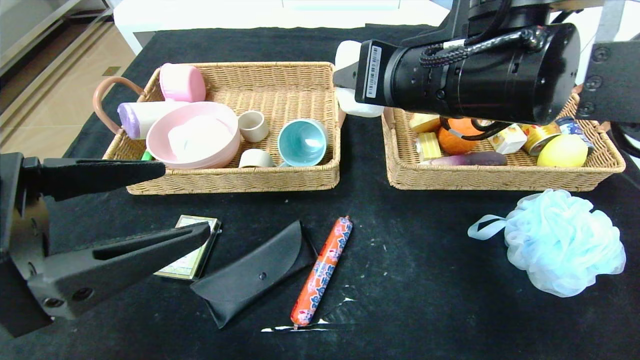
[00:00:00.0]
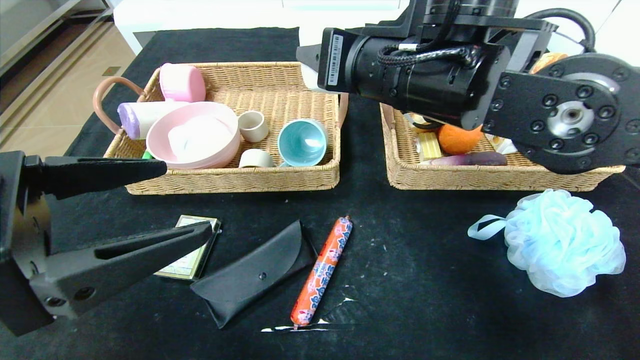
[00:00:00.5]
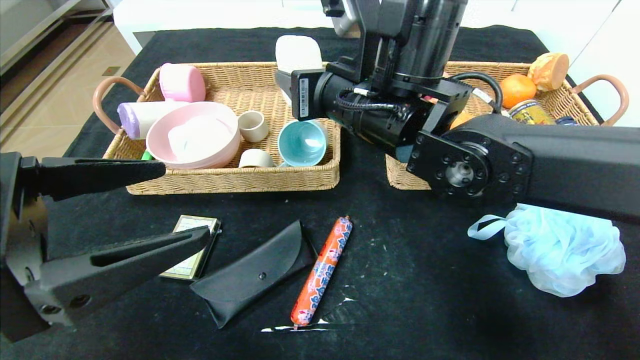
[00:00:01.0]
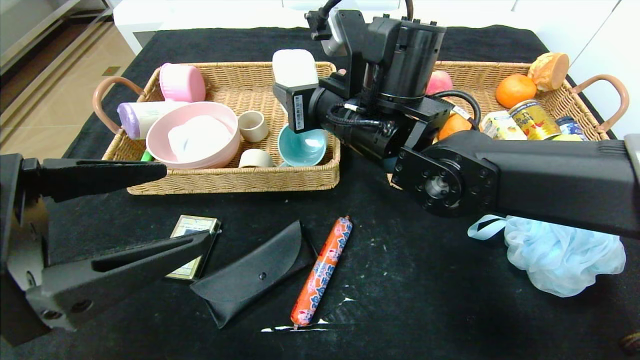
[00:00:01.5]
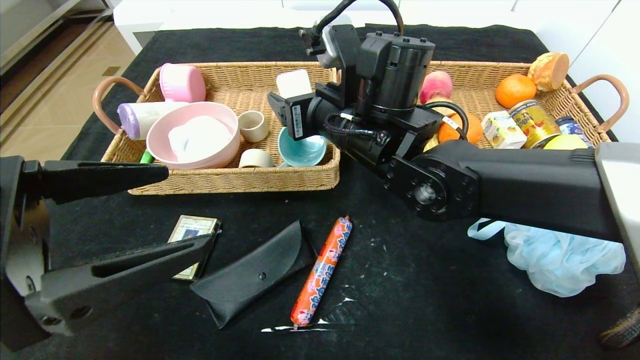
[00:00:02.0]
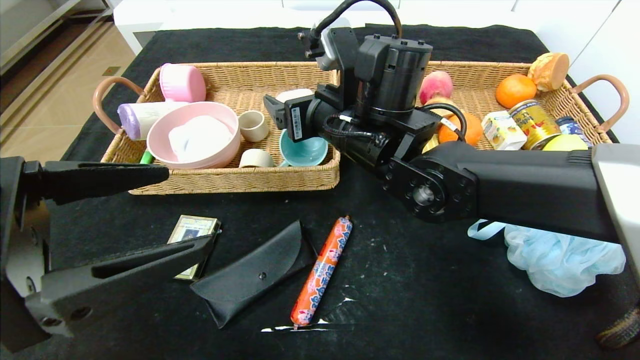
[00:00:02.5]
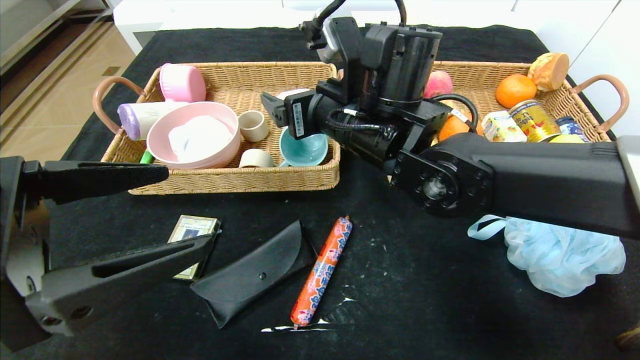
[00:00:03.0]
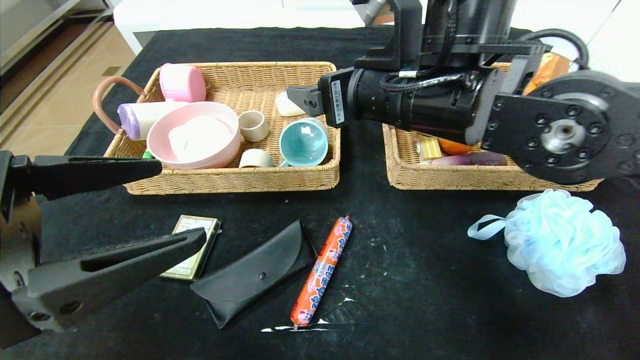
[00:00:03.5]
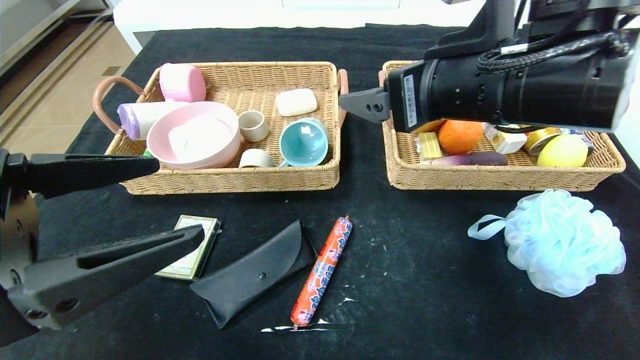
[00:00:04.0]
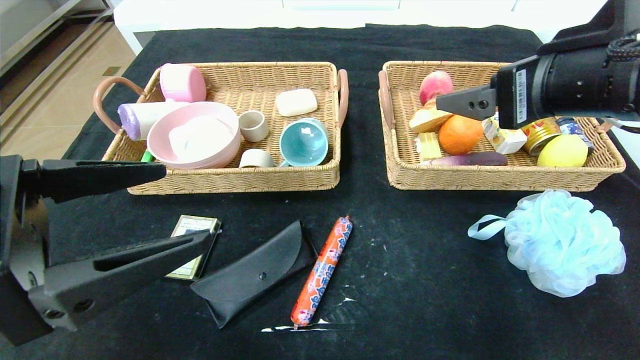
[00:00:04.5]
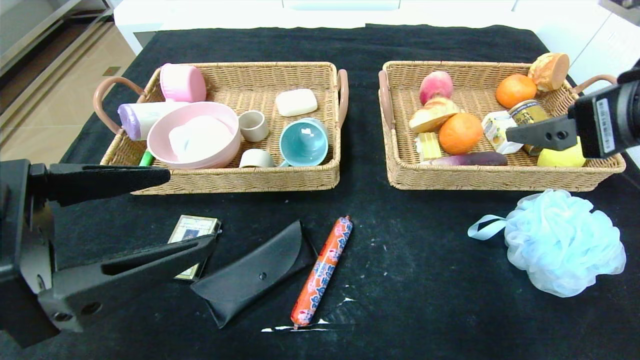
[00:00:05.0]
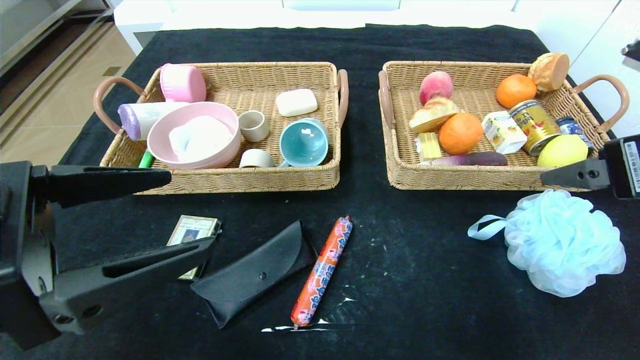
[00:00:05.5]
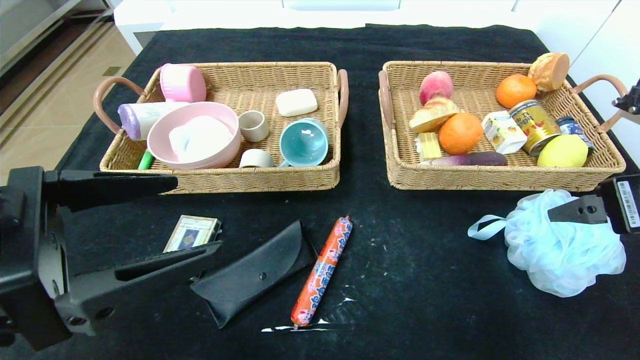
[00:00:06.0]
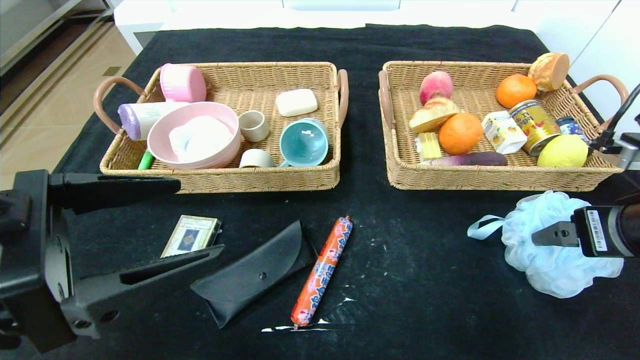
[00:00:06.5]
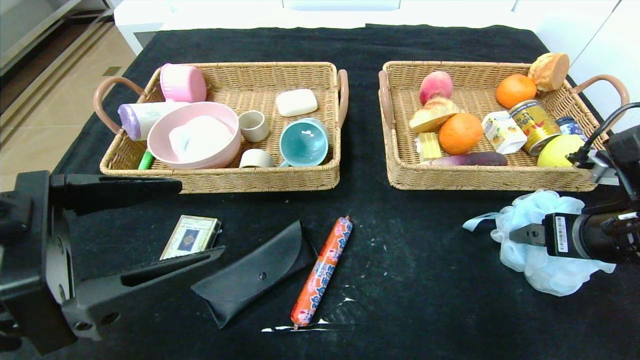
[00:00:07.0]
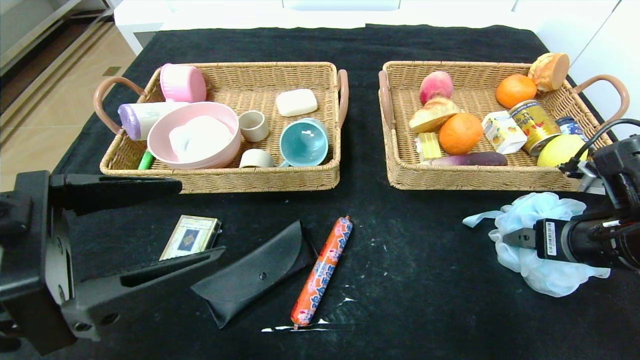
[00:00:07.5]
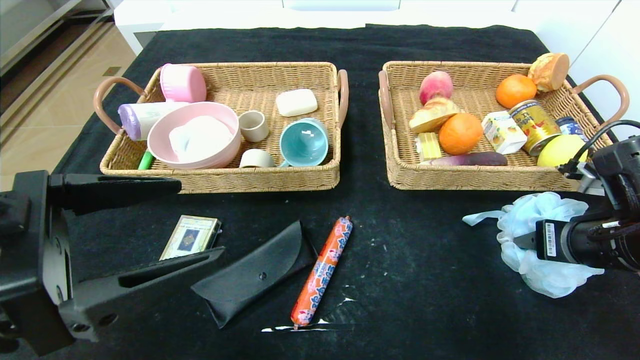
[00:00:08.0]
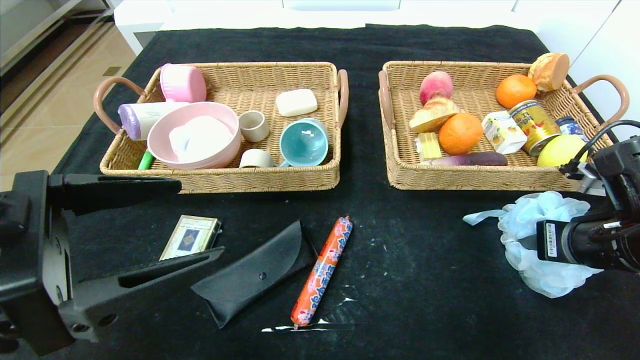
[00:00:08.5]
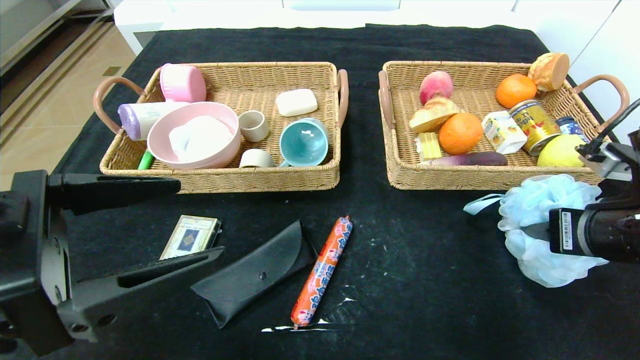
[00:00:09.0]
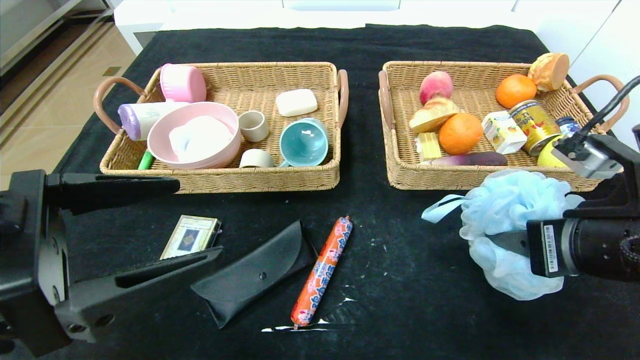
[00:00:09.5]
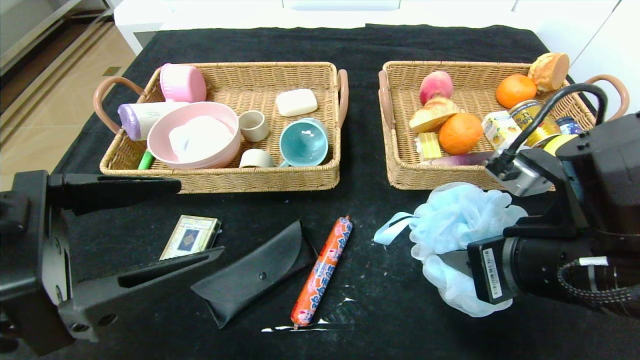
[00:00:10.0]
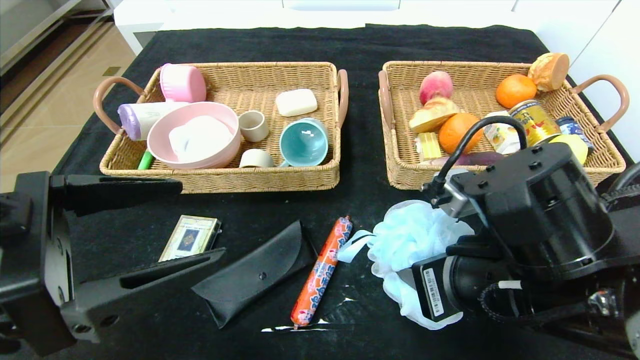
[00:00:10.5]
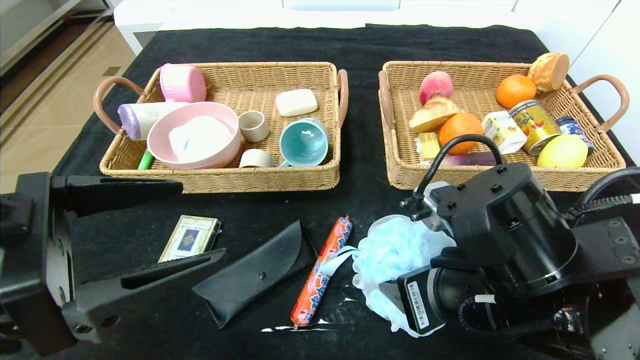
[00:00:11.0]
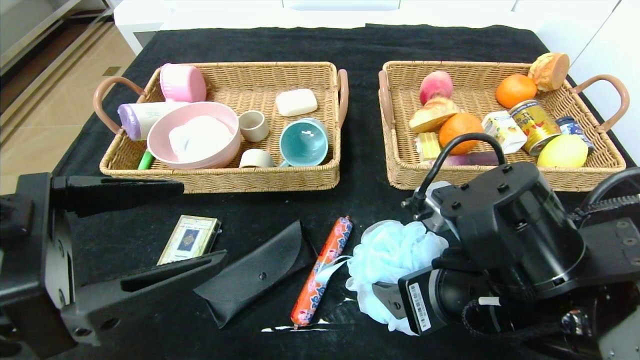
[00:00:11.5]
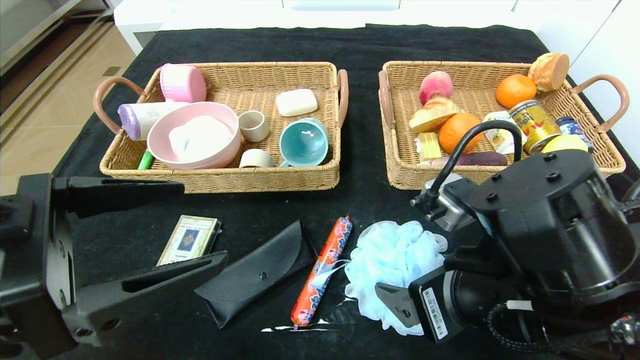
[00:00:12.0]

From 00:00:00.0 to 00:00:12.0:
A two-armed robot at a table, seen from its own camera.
From 00:00:00.0 to 00:00:02.0: The right gripper travels to the left, forward and downward by approximately 10 cm, and opens.
From 00:00:02.0 to 00:00:04.0: The right gripper is displaced to the right, backward and upward by approximately 15 cm.
From 00:00:04.0 to 00:00:06.0: The right gripper heads to the right, covering approximately 15 cm.
From 00:00:06.0 to 00:00:08.0: The right gripper shifts about 10 cm downward, and closes.
From 00:00:08.0 to 00:00:10.0: The right gripper heads to the left and backward, covering some 15 cm.
From 00:00:10.0 to 00:00:12.0: The right gripper opens.

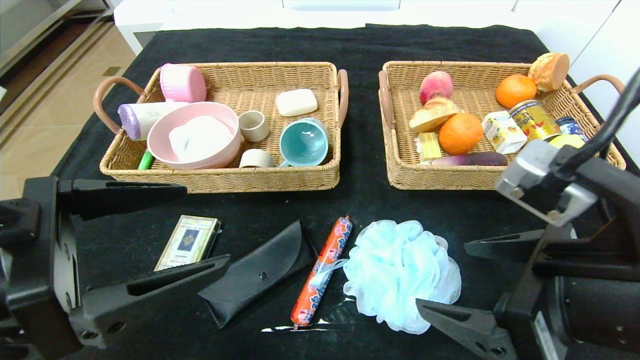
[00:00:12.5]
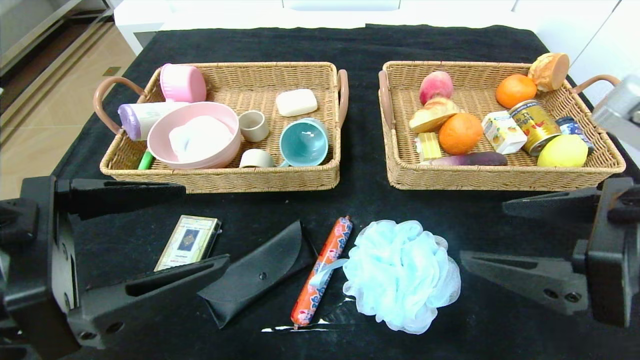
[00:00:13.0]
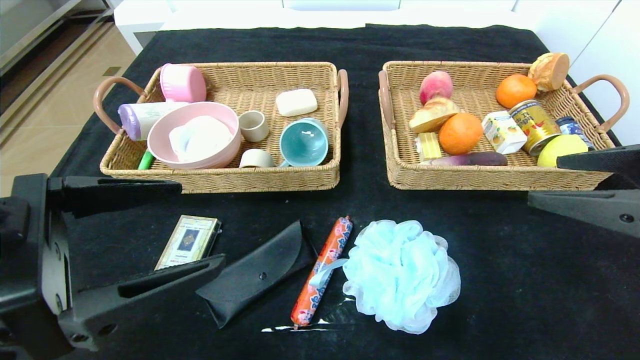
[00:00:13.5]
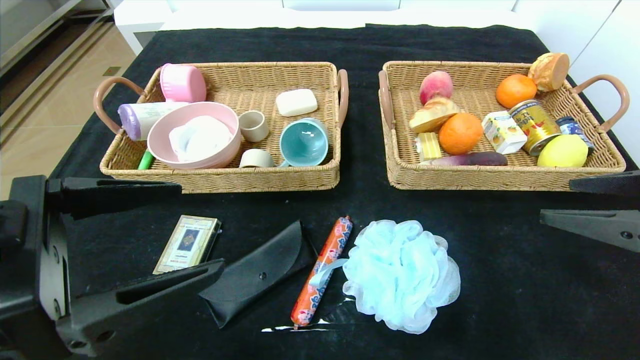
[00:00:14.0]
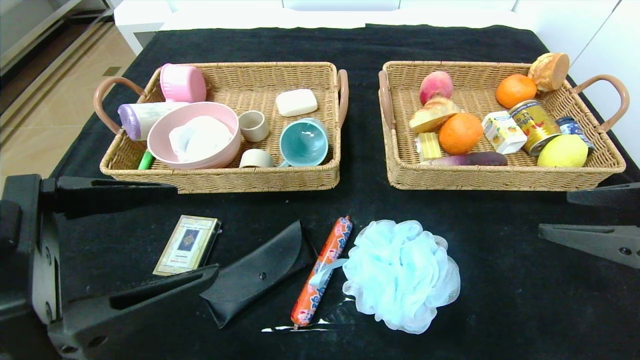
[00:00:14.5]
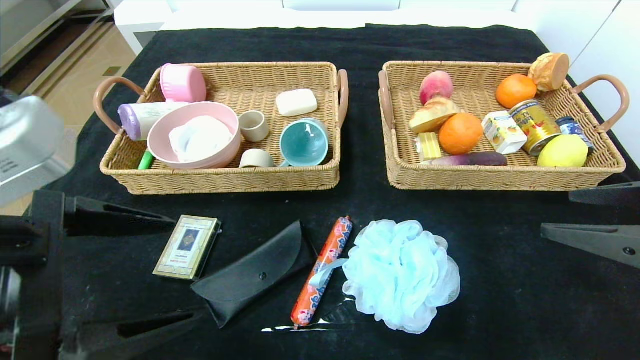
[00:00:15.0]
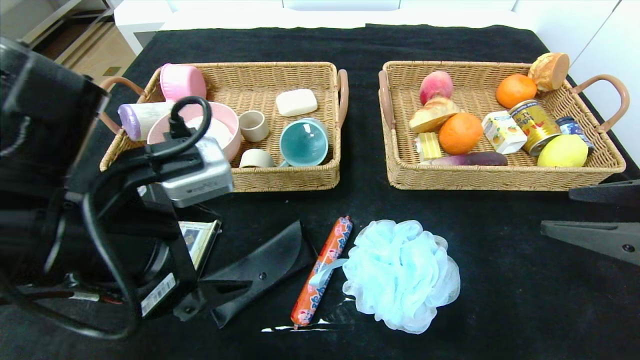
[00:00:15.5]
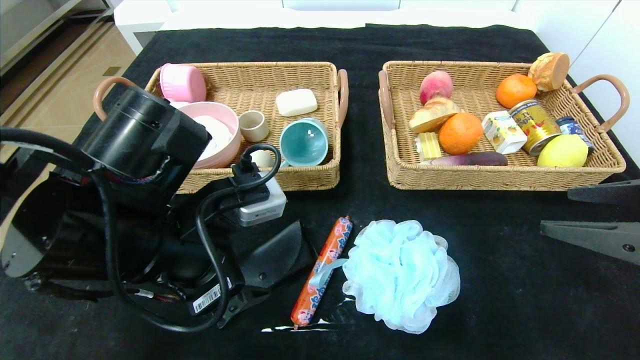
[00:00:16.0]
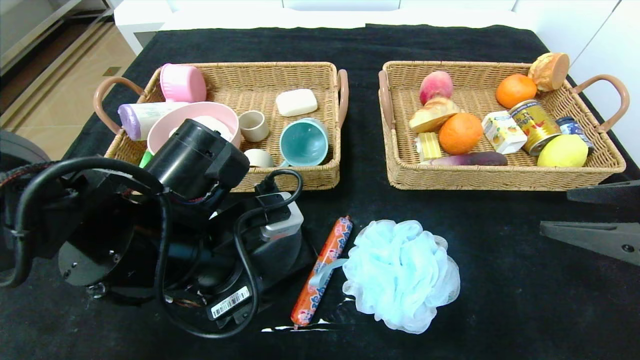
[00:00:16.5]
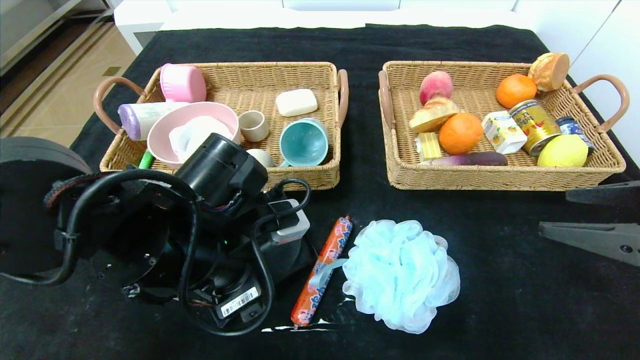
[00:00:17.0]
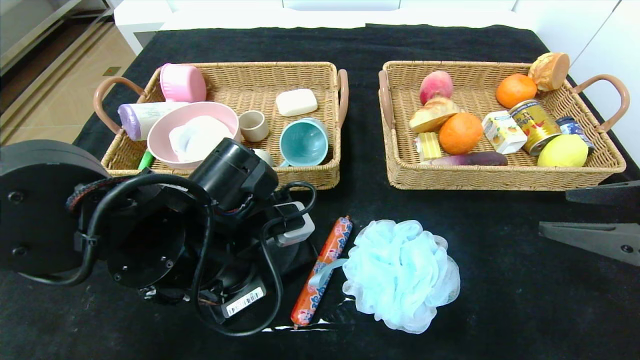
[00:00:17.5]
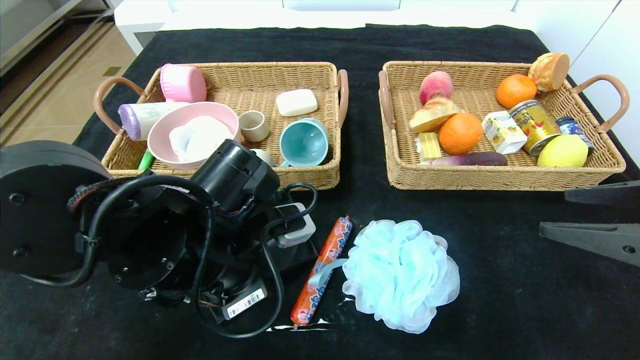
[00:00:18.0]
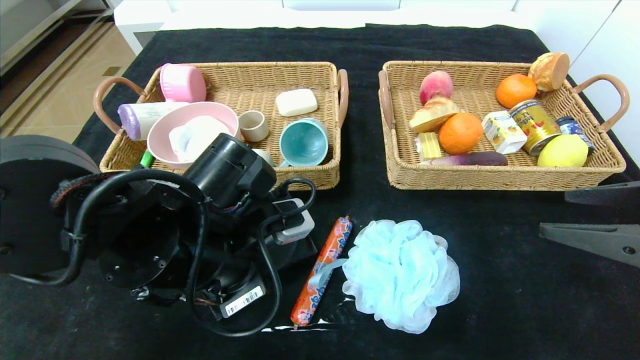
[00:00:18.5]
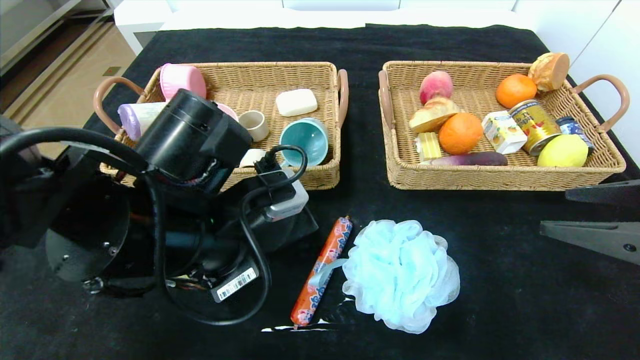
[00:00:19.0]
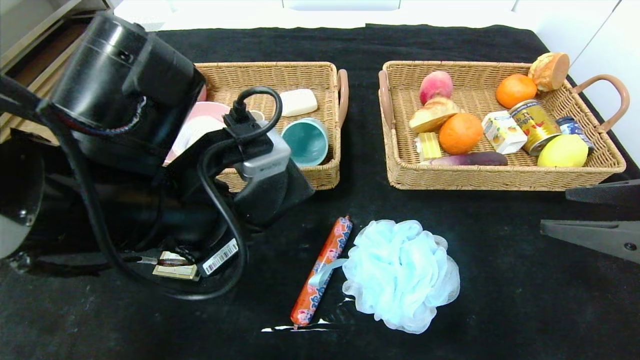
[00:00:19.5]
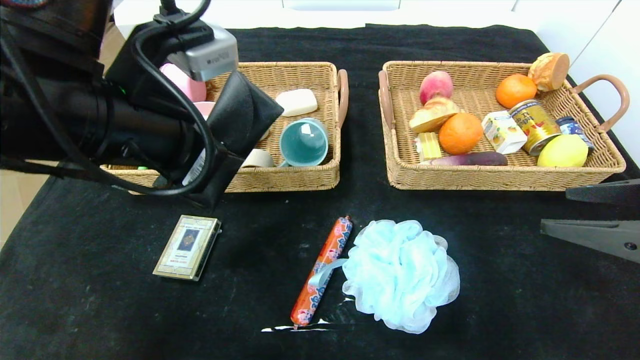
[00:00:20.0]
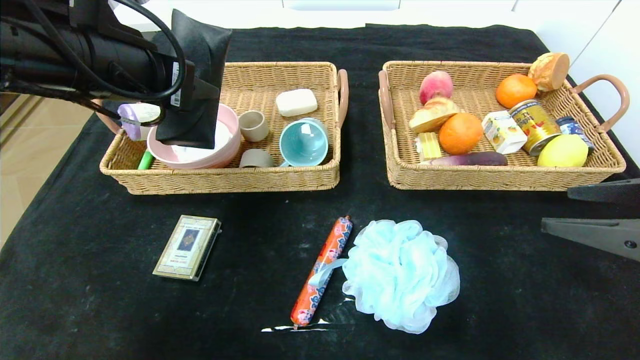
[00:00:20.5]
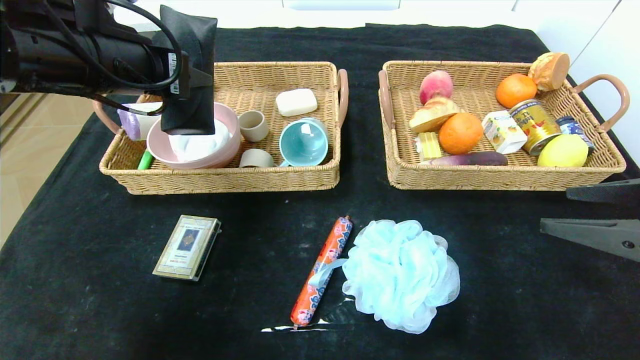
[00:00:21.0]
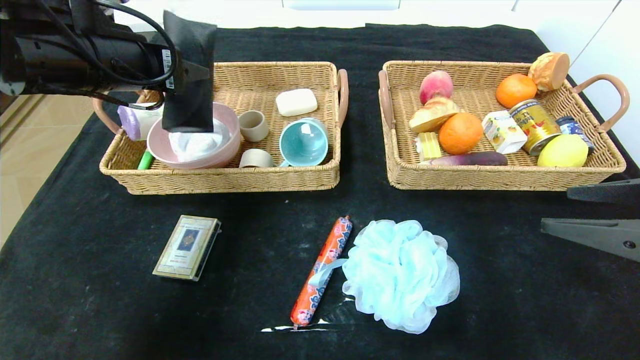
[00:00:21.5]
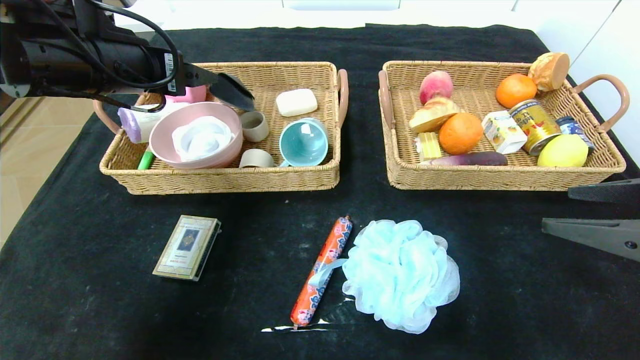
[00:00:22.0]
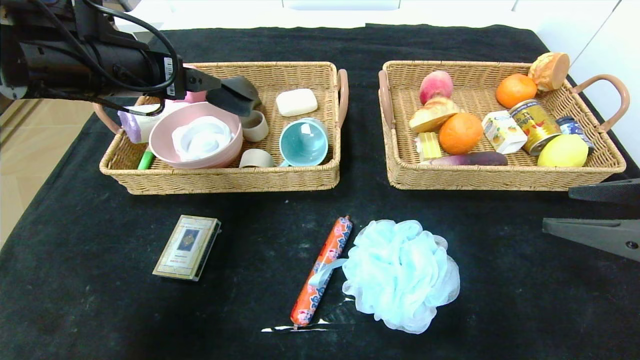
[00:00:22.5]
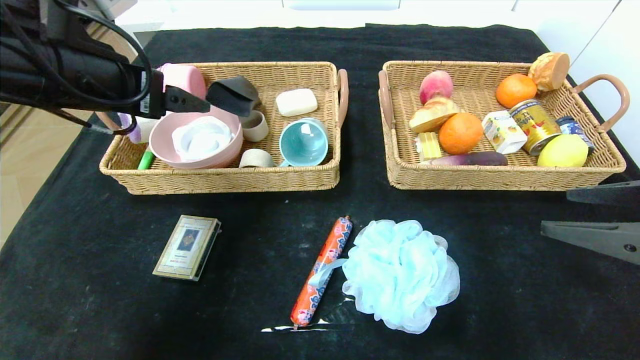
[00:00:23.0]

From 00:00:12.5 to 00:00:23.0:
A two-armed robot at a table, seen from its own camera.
Step, from 00:00:12.5 to 00:00:22.0: Grasp the glasses case and put it in the left basket.
From 00:00:12.5 to 00:00:14.5: The right gripper travels to the right by some 15 cm.
From 00:00:14.5 to 00:00:16.5: The left gripper moves forward, to the right and downward, about 15 cm.
From 00:00:16.5 to 00:00:19.0: The left gripper closes.
From 00:00:19.0 to 00:00:21.0: The left gripper heads upward, to the left and forward, covering roughly 20 cm.
From 00:00:21.0 to 00:00:23.0: The left gripper opens its fingers.
